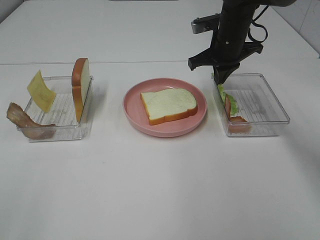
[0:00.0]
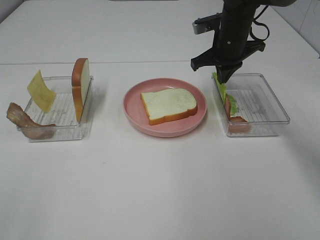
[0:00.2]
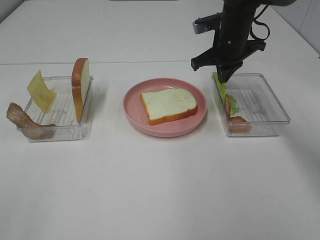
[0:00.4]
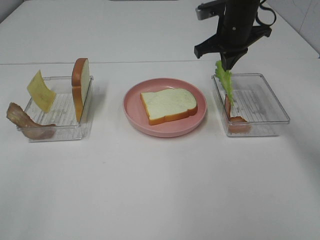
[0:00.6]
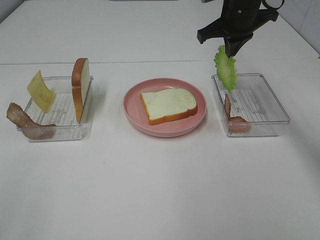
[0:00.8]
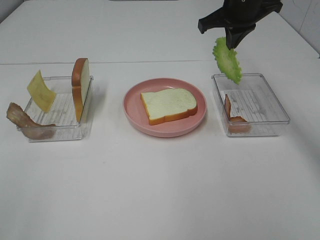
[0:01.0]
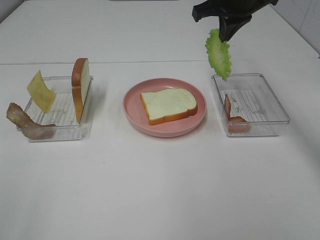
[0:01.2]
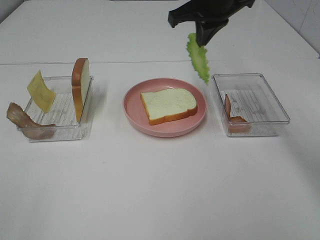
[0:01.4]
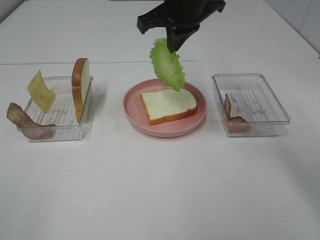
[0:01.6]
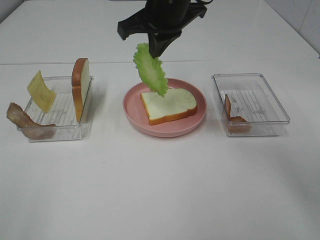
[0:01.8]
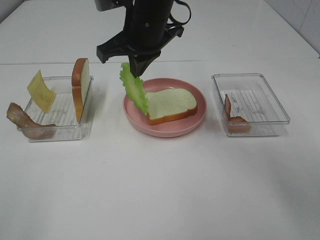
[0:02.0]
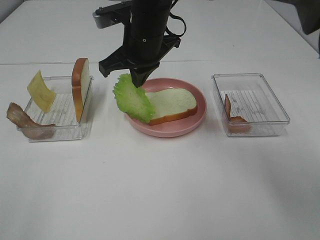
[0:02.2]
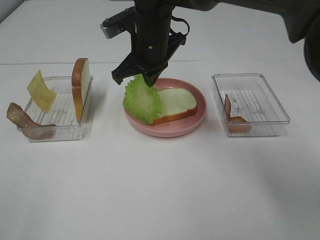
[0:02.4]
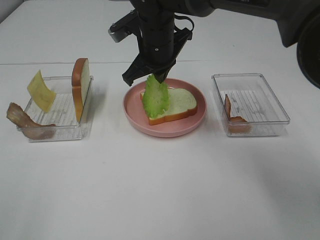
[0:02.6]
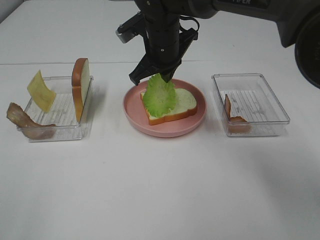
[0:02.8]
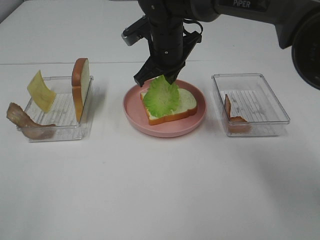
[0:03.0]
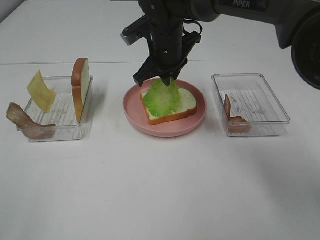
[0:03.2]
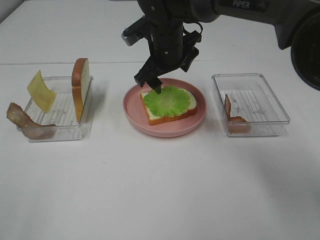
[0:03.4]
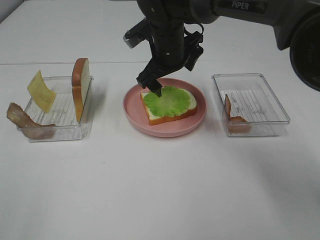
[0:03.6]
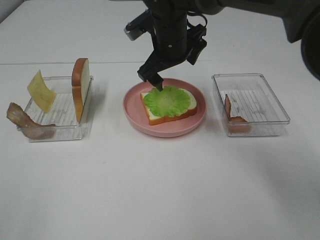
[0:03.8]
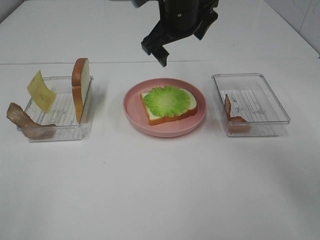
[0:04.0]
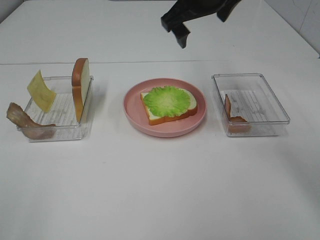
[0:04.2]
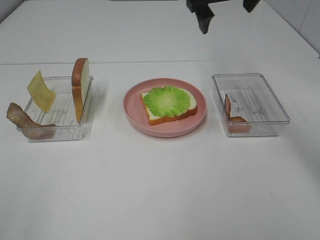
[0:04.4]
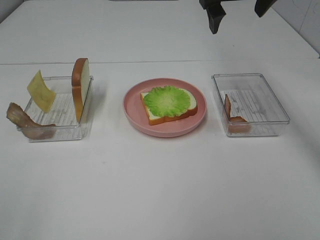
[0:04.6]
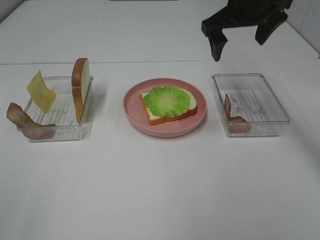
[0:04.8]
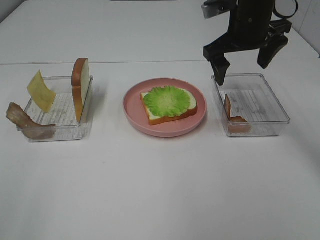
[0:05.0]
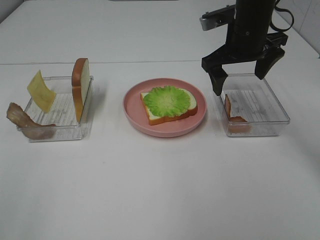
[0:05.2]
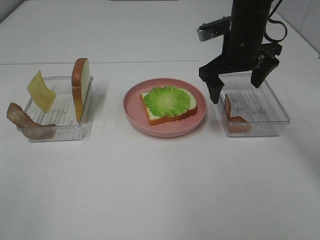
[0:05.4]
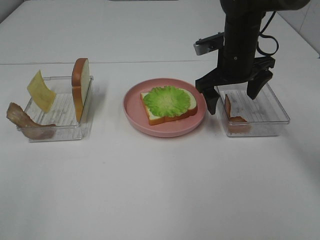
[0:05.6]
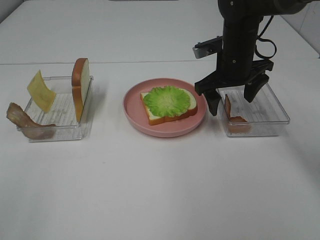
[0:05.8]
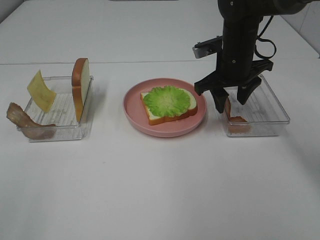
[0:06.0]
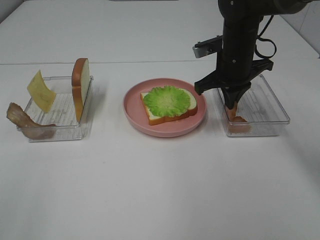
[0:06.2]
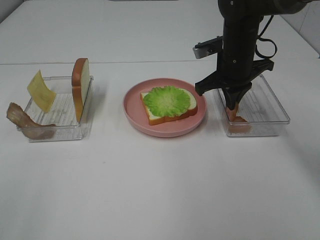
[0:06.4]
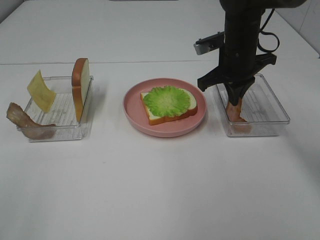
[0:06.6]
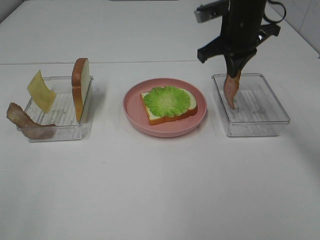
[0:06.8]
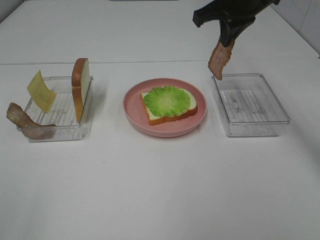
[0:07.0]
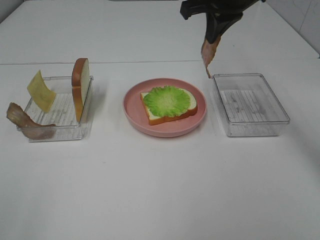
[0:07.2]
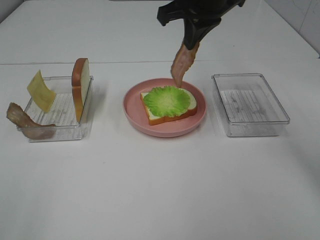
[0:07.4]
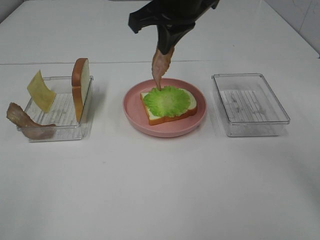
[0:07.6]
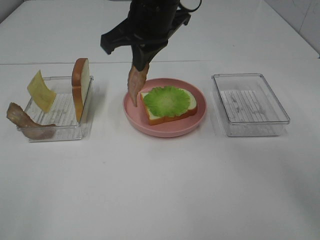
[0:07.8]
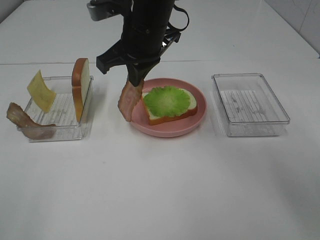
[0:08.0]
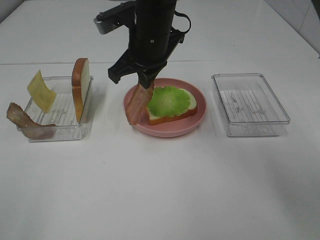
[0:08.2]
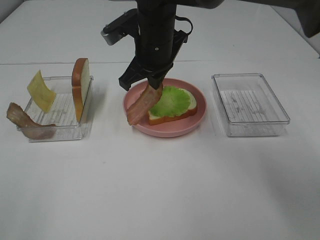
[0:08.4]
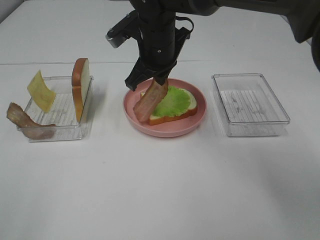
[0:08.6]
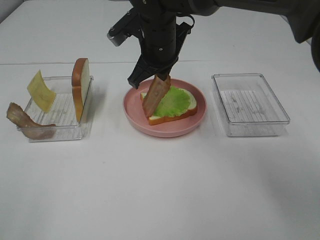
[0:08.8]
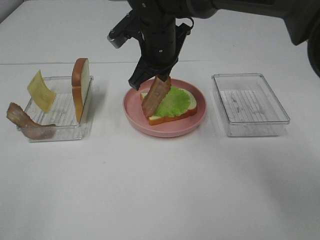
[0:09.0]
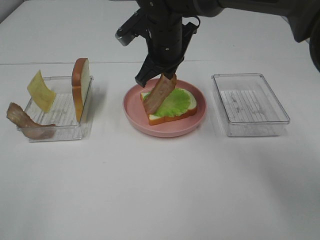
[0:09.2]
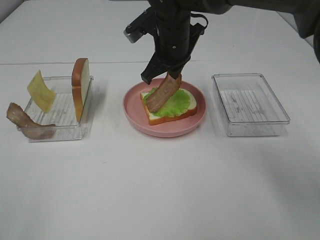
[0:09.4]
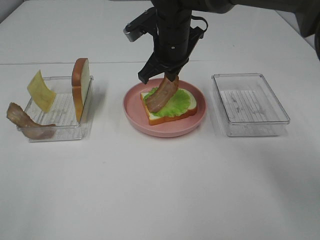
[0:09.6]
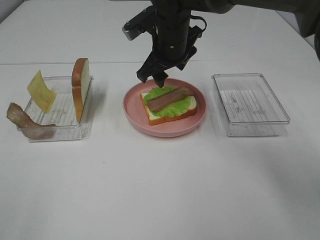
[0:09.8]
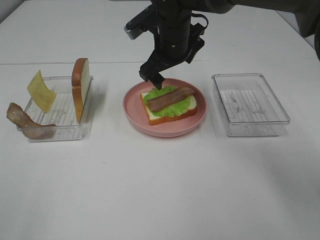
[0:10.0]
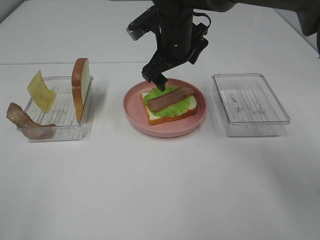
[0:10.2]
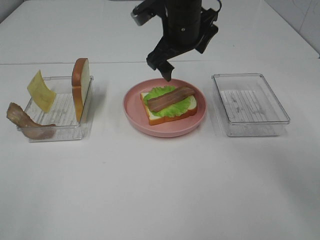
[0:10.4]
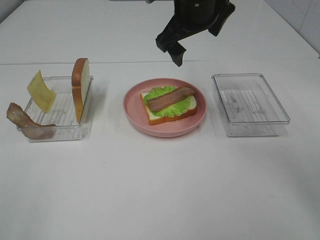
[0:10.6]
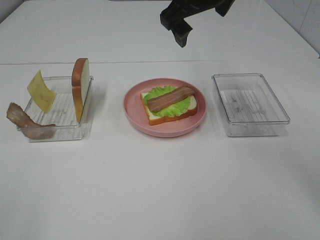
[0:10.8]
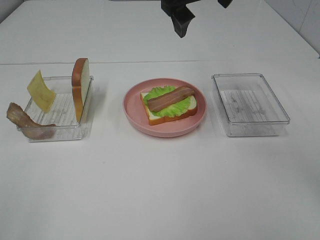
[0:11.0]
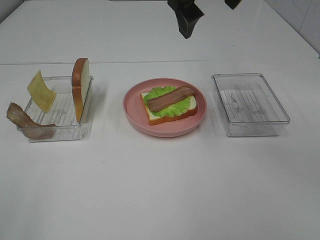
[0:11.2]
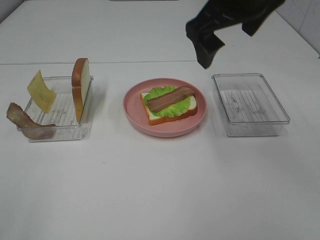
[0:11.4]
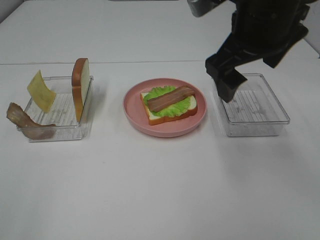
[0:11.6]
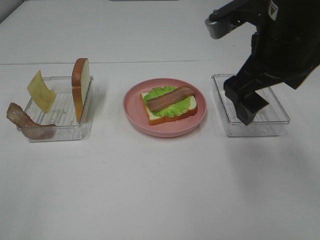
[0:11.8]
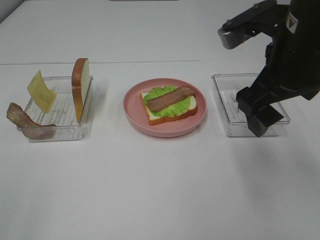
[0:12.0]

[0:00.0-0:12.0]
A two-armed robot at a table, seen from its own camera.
Task of the whole recording: Make sandwiches.
Step, 0:00.4 to 0:03.6: Right hand:place the lettuce slice on the bread slice.
Step, 0:03.8 to 0:06.4: Right hand:grab the bacon.
Step, 0:06.6 to 0:10.2: Right hand:place bacon on lettuce slice.
0:00.0 to 0:01.6: The right gripper moves to the left, upward and backward, roughly 15 cm.
0:01.6 to 0:03.0: The right gripper is displaced downward by approximately 10 cm.
0:03.0 to 0:04.4: The right gripper moves upward and to the right, approximately 15 cm, and opens.
0:04.4 to 0:06.0: The right gripper goes roughly 15 cm downward, and closes its fingers.
0:06.0 to 0:07.6: The right gripper moves upward and to the left, approximately 20 cm, and closes up.
0:07.6 to 0:09.0: The right gripper goes roughly 10 cm downward.
0:09.0 to 0:10.4: The right gripper changes place by roughly 5 cm, and opens its fingers.
0:10.4 to 0:12.0: The right gripper is displaced backward and to the right by some 20 cm.

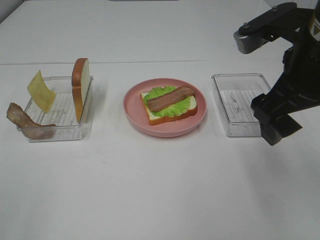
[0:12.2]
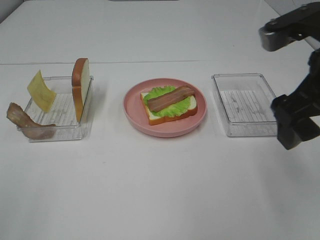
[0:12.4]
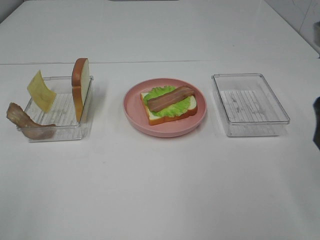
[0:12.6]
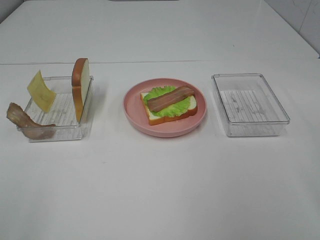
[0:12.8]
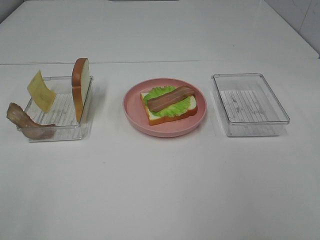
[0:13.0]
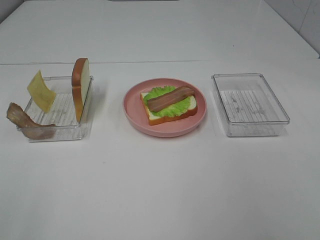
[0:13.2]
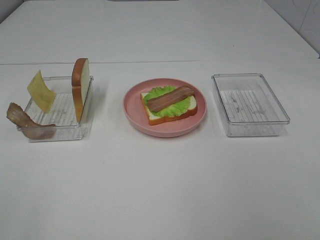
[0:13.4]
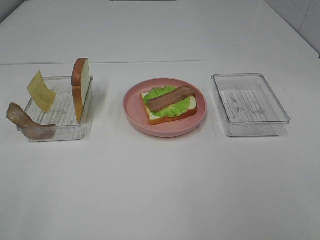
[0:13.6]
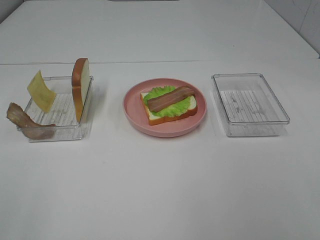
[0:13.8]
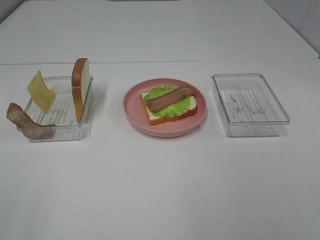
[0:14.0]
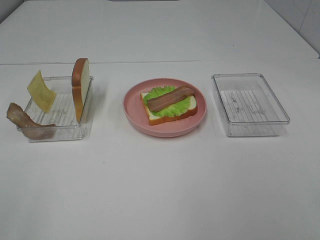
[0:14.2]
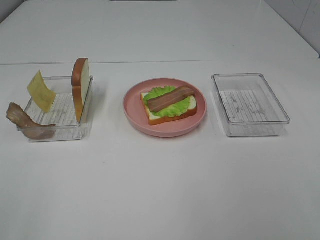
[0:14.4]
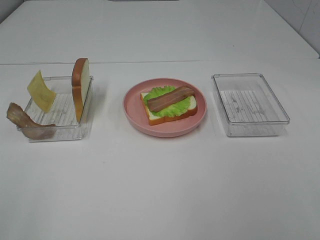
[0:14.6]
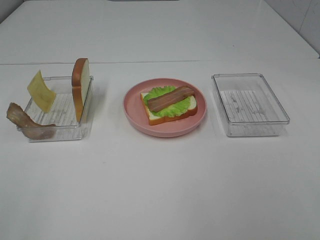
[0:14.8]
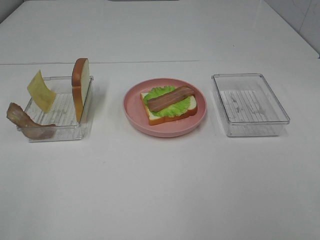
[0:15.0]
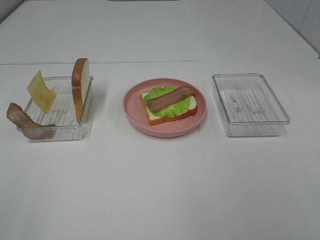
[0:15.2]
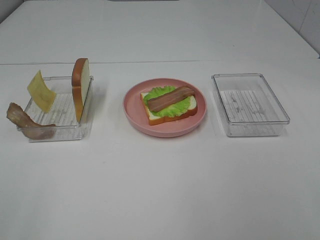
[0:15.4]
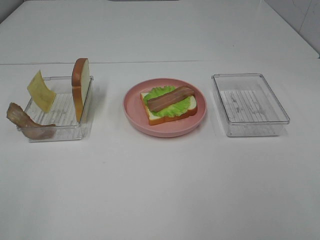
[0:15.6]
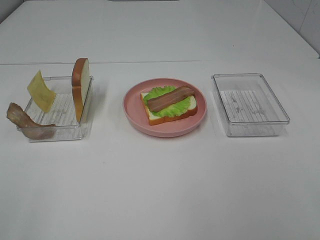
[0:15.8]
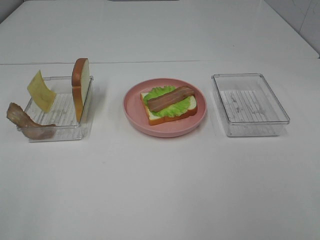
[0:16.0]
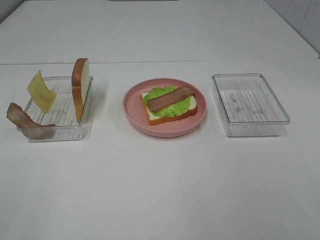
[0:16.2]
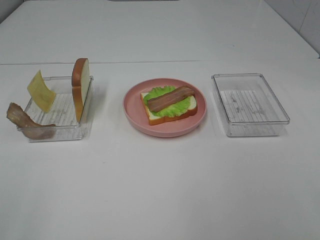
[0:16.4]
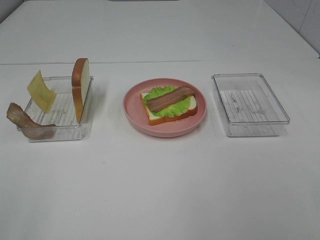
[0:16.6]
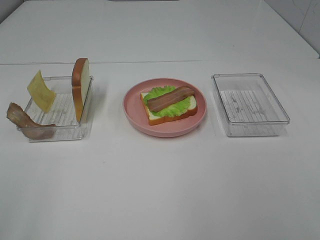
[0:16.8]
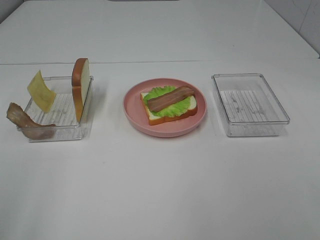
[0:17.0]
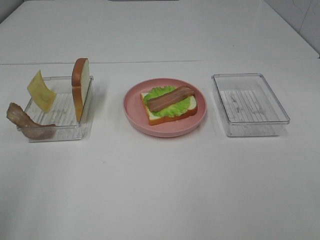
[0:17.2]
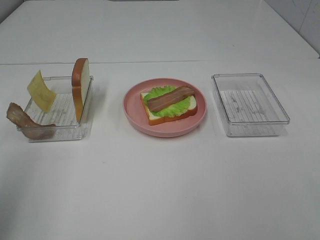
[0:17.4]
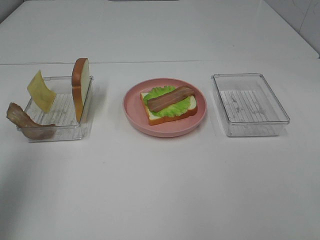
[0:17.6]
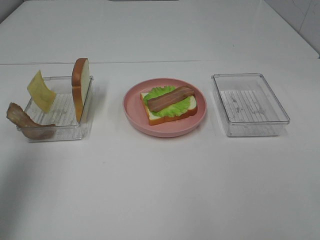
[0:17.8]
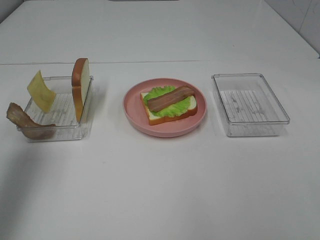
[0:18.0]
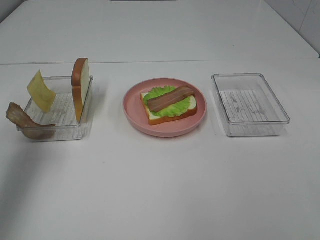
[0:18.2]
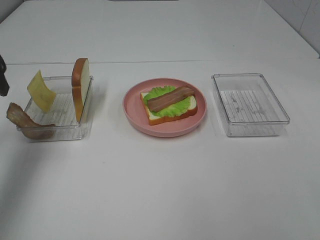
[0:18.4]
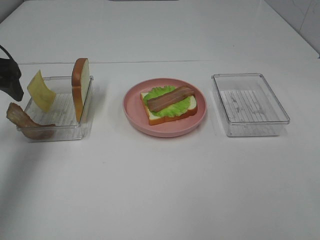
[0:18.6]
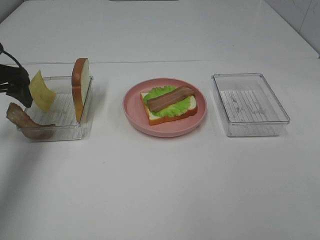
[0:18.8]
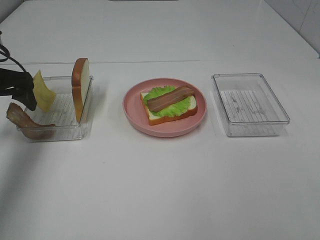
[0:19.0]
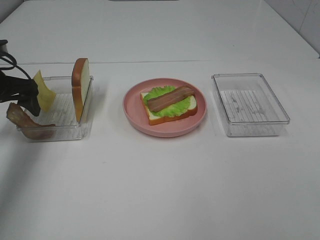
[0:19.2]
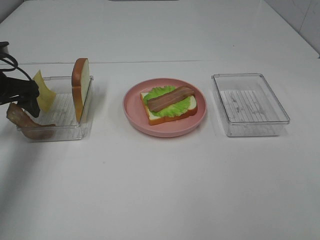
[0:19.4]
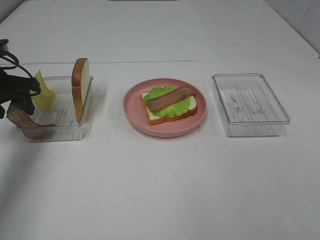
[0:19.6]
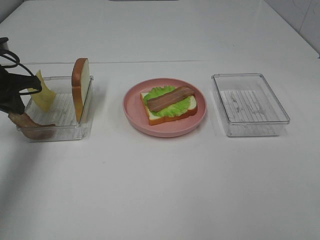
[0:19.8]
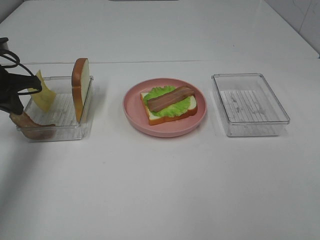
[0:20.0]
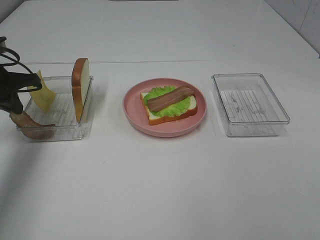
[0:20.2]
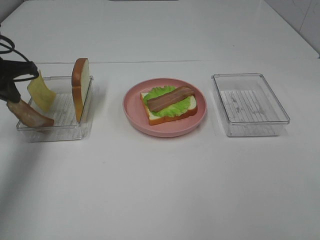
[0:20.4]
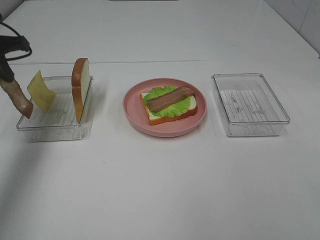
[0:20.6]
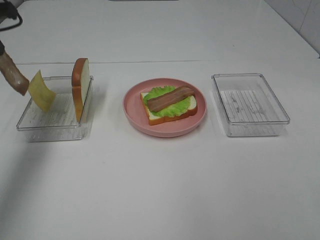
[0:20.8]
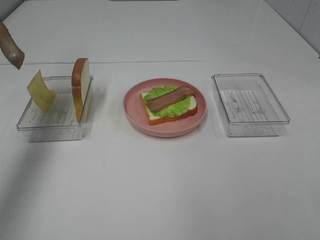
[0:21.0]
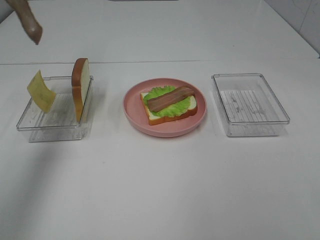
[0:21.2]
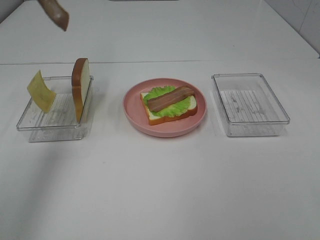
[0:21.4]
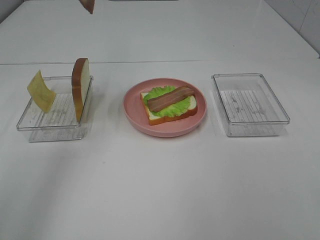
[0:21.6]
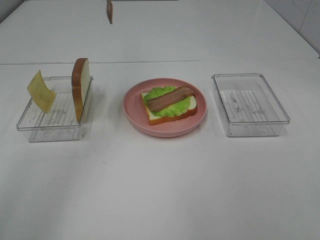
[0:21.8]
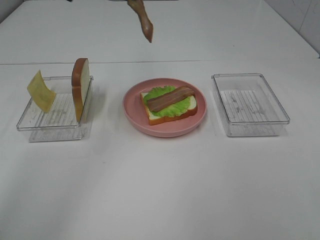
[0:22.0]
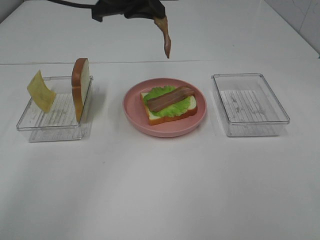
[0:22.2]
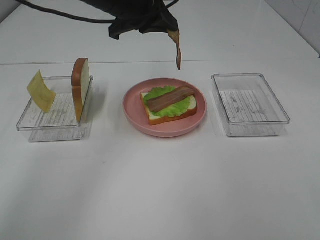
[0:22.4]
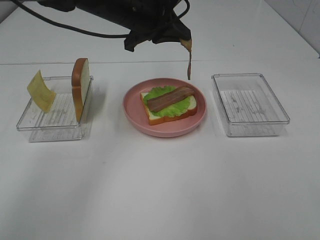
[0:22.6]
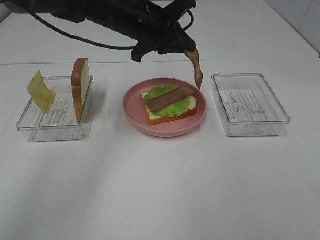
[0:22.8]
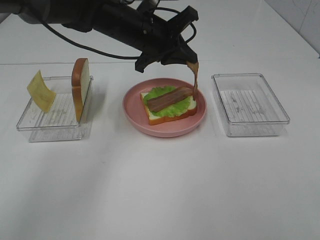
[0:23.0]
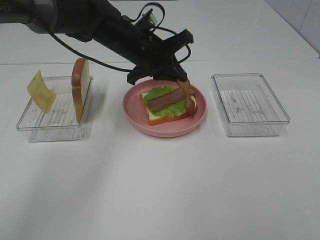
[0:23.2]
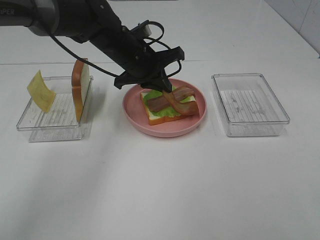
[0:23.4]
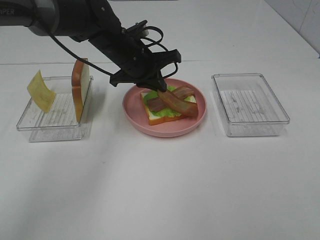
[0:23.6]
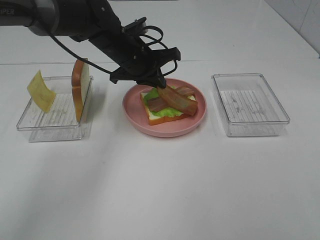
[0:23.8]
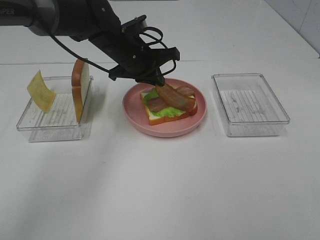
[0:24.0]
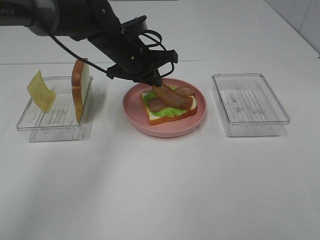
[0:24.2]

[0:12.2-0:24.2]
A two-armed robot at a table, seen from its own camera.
Task of the whole recording: Make sandwiches.
Step, 0:12.2 to 0:20.0: Left hand:grab the bacon.
0:12.2 to 0:13.8: The right gripper travels backward and to the right by roughly 25 cm.
0:13.8 to 0:16.6: Neither gripper changes place.
0:16.6 to 0:18.2: The left gripper goes approximately 30 cm forward.
0:18.2 to 0:19.8: The left gripper is displaced downward and forward by roughly 15 cm, and closes up.
0:19.8 to 0:21.2: The left gripper is displaced upward by some 20 cm.
0:21.2 to 0:22.6: The left gripper moves to the right and downward, roughly 25 cm.
0:22.6 to 0:24.2: The left gripper travels downward by about 10 cm.
